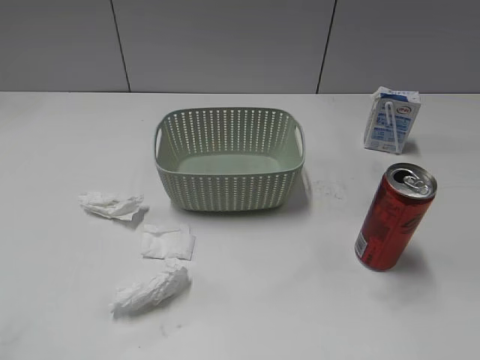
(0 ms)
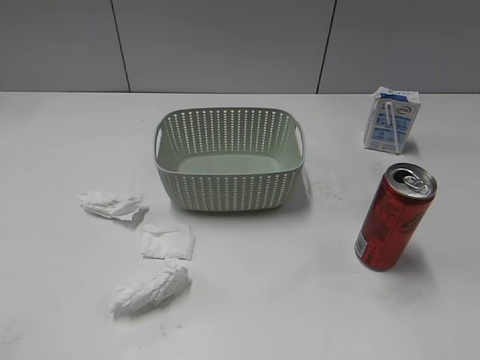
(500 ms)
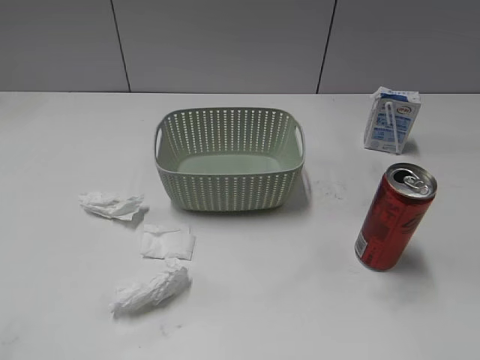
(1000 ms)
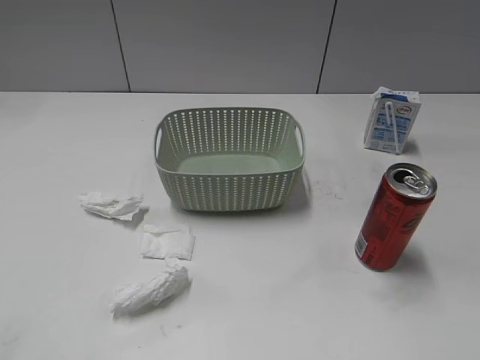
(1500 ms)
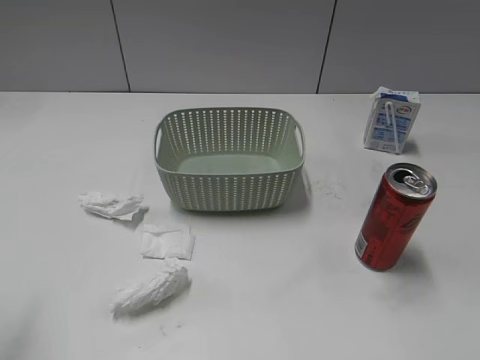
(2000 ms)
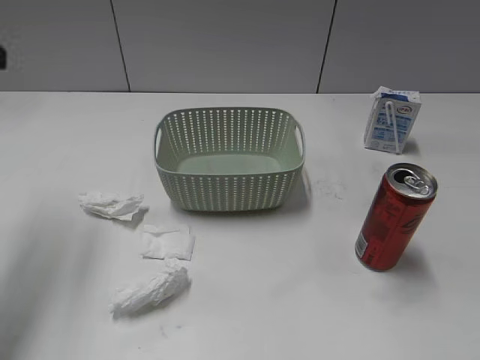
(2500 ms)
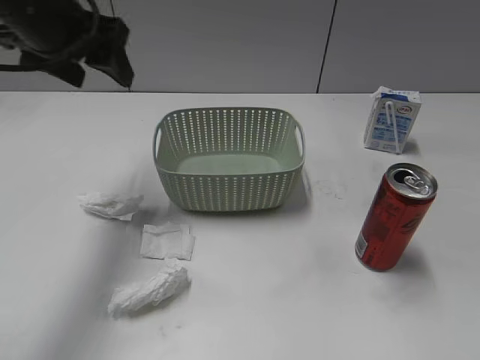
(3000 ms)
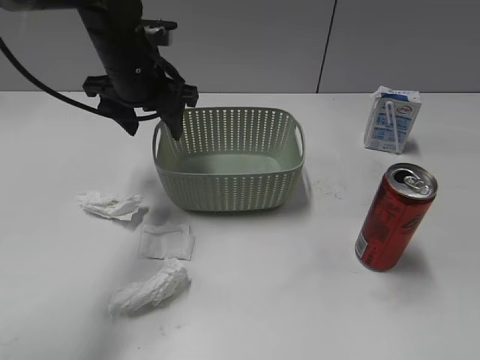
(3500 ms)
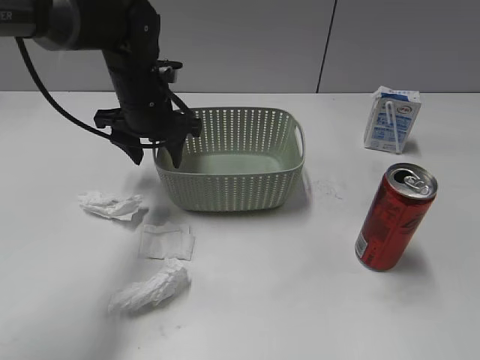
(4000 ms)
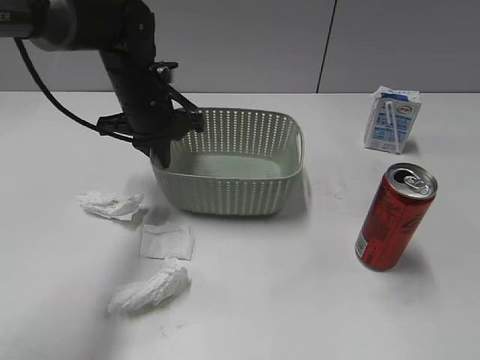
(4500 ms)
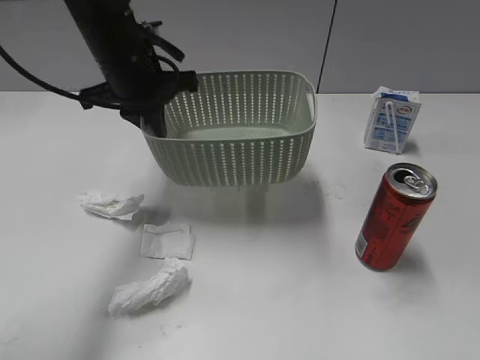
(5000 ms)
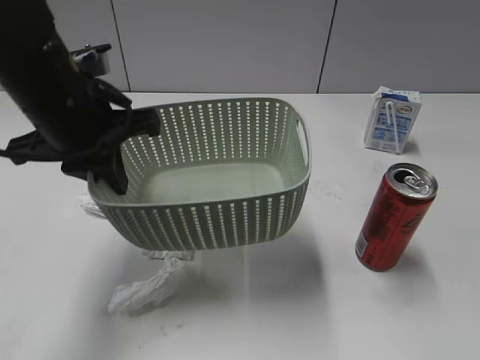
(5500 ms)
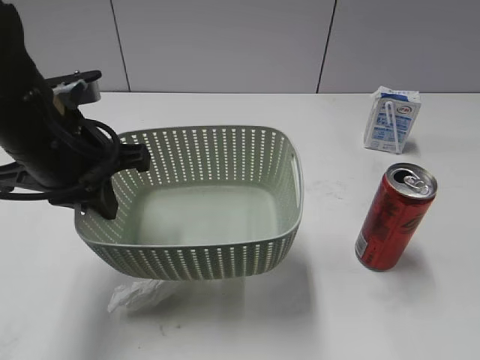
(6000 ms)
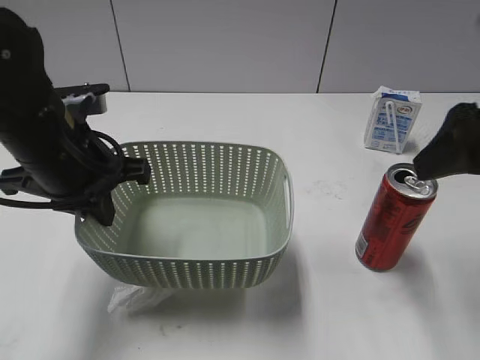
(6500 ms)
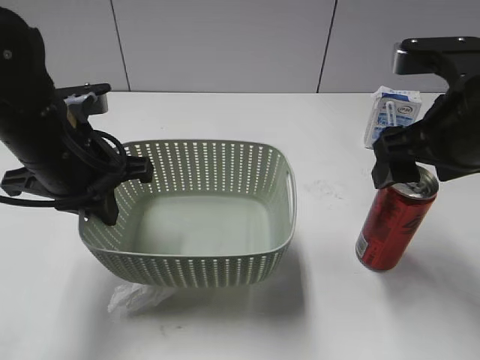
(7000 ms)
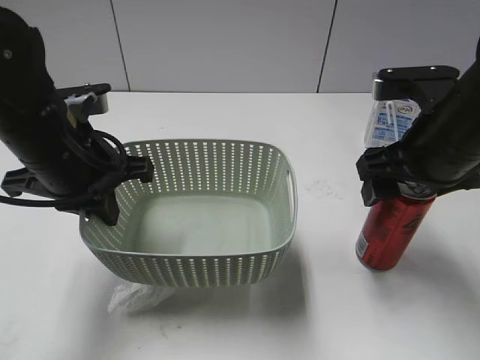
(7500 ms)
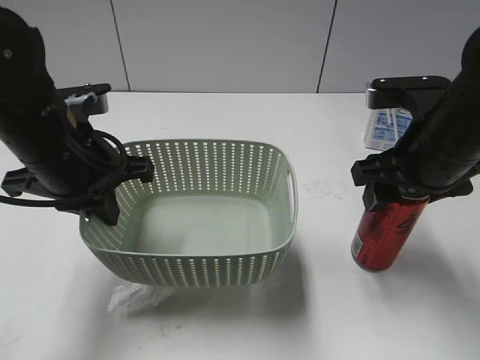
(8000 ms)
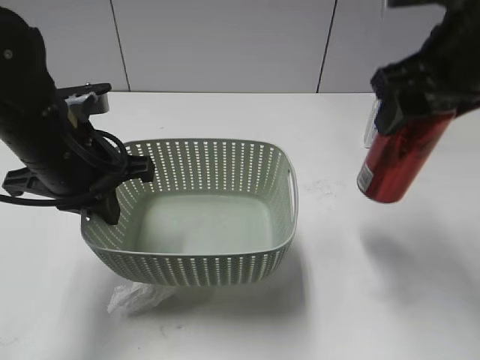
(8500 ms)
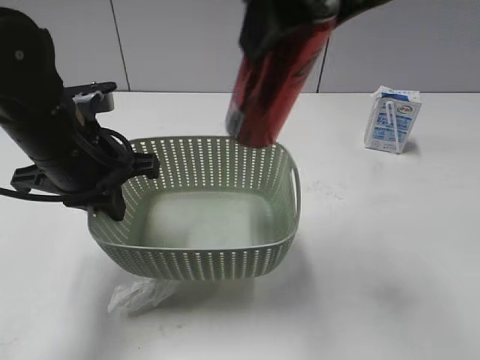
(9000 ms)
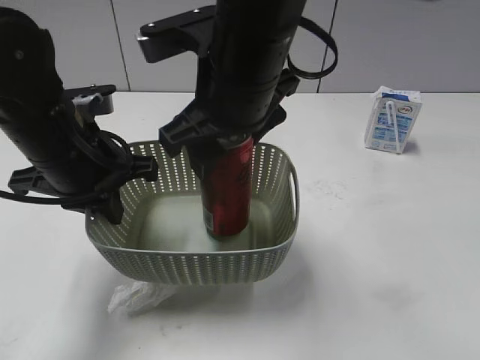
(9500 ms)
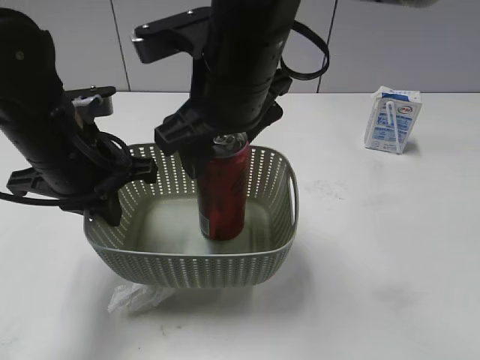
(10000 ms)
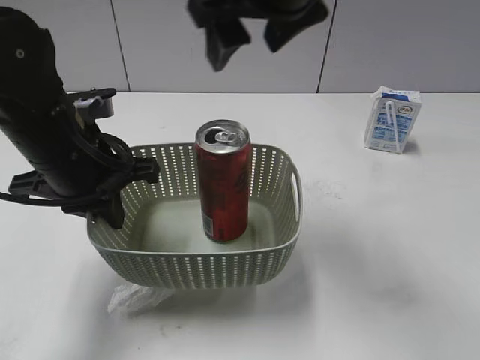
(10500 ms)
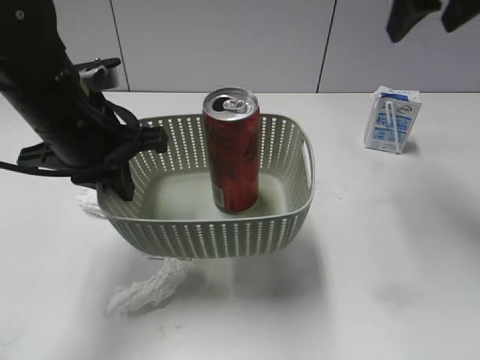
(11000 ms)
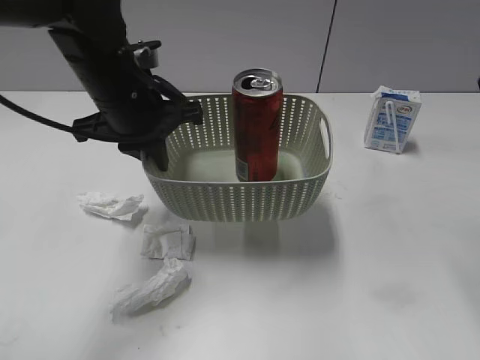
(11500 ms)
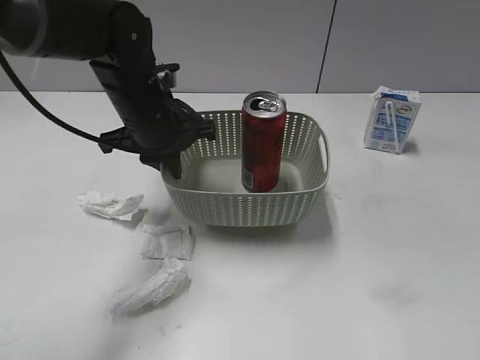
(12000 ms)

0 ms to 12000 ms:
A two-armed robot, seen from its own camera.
Step, 3000 ms to 4000 ms: Grasp the basket with left gripper.
Step, 4500 ms to 6000 ms: Lift the basket with left gripper.
Step, 6500 ms to 7500 ms: Grasp the cola can with right gripper.
Step, 8000 ms to 10000 ms: Place the cola can in the basket with right gripper.
2000 ms to 4000 ms: The left gripper travels forward, to the right and downward by some 35 cm.
4000 ms to 6000 ms: The left gripper heads backward and upward, covering approximately 15 cm, and closes; the right gripper is displaced forward and upward by some 15 cm, and opens its fingers.
6000 ms to 8000 ms: The right gripper moves forward, downward and to the left, approximately 20 cm, and closes its fingers.
8000 ms to 10000 ms: The right gripper moves to the left, some 20 cm, and opens its fingers.
10000 ms to 12000 ms: The left gripper is displaced forward and to the right by roughly 10 cm. The right gripper moves to the right and backward, roughly 35 cm.

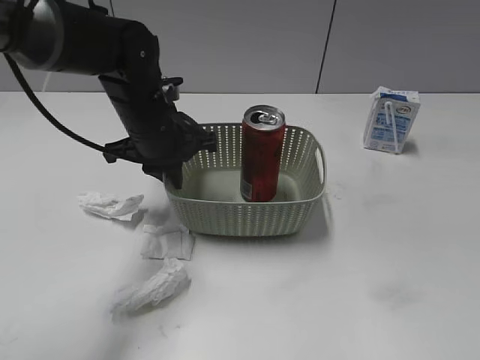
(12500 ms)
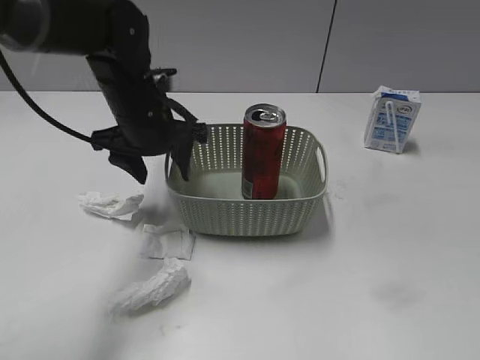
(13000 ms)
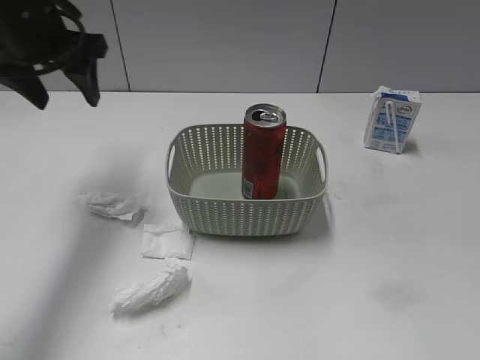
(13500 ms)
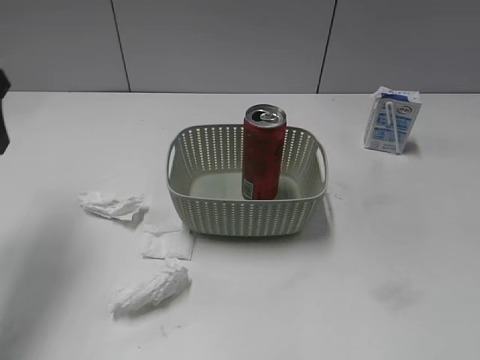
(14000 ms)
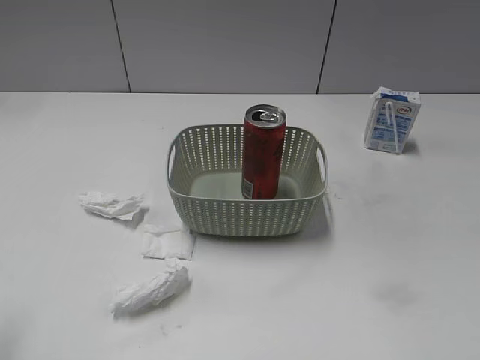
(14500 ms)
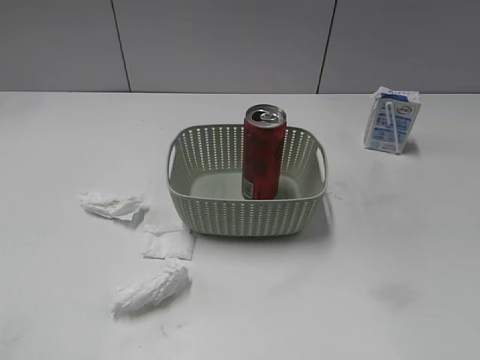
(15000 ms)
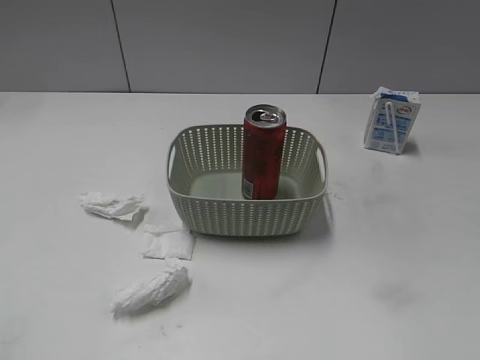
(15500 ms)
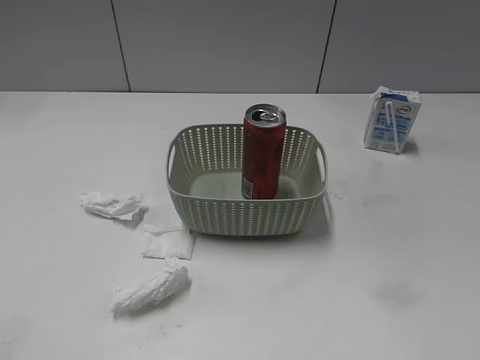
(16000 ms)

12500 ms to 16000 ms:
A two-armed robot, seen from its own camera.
12500 ms to 14500 ms: The left gripper is displaced backward, to the left and upward by some 35 cm, and opens its fingers.

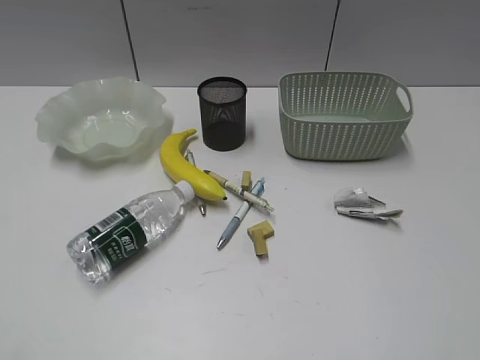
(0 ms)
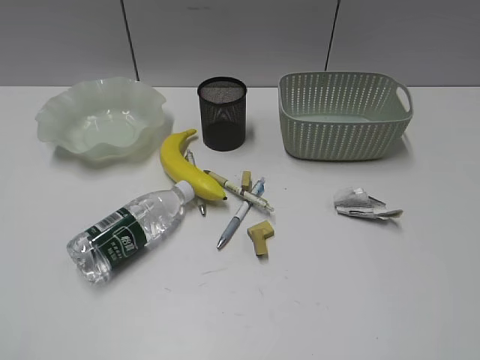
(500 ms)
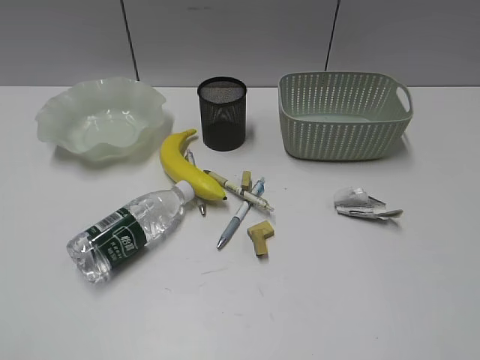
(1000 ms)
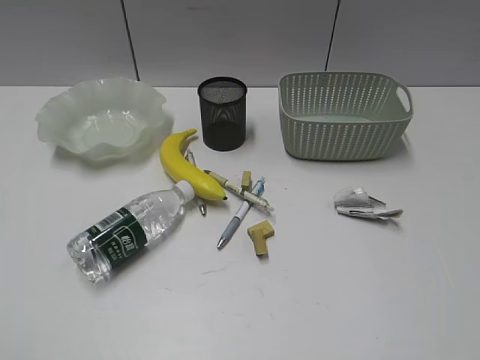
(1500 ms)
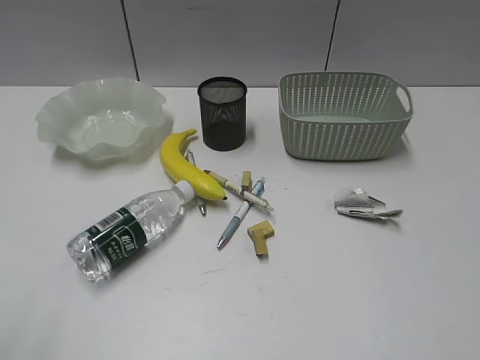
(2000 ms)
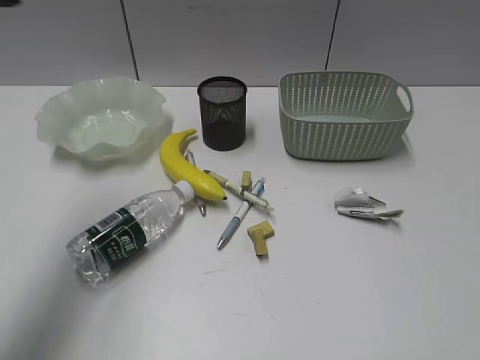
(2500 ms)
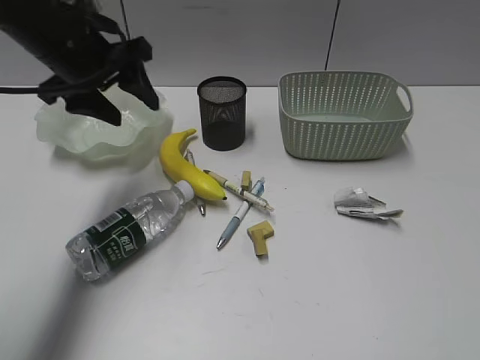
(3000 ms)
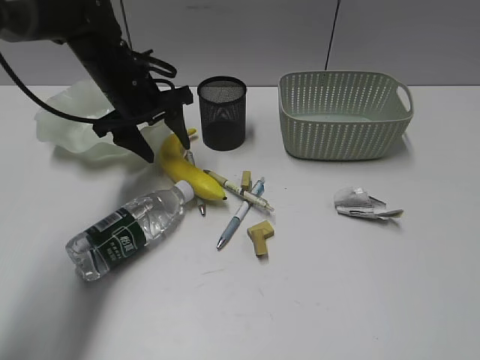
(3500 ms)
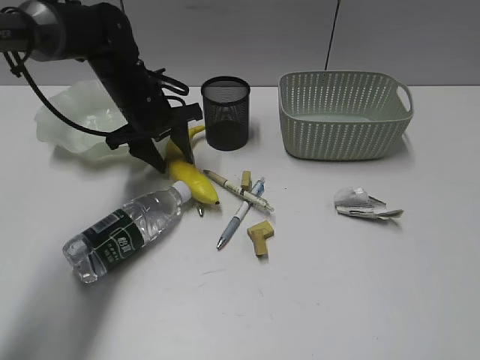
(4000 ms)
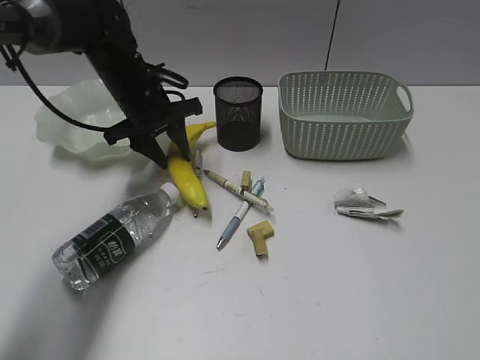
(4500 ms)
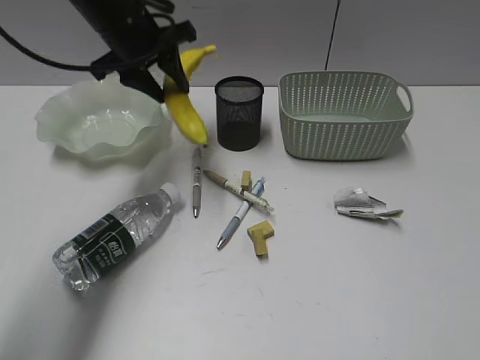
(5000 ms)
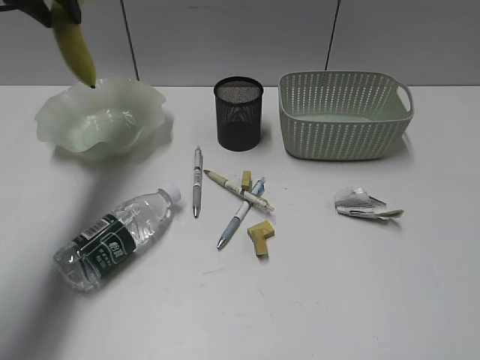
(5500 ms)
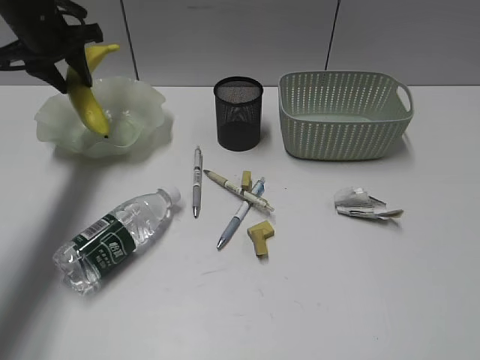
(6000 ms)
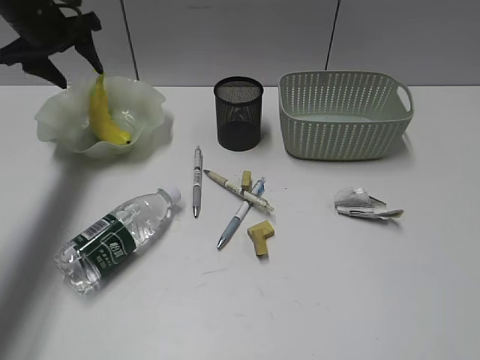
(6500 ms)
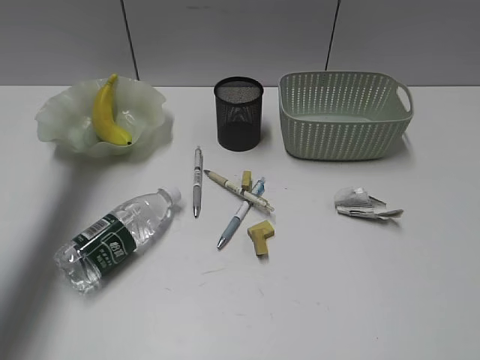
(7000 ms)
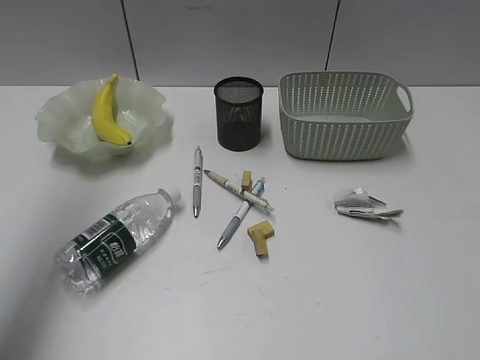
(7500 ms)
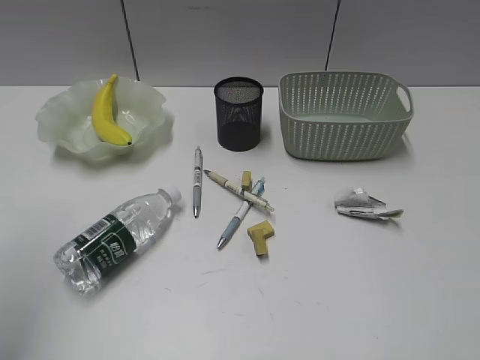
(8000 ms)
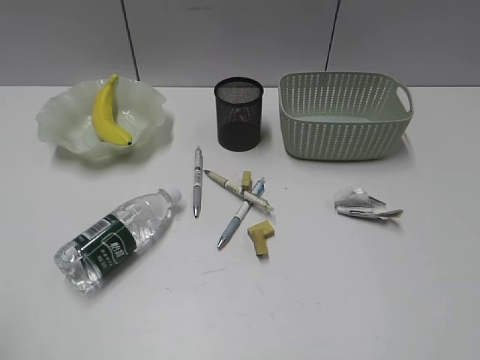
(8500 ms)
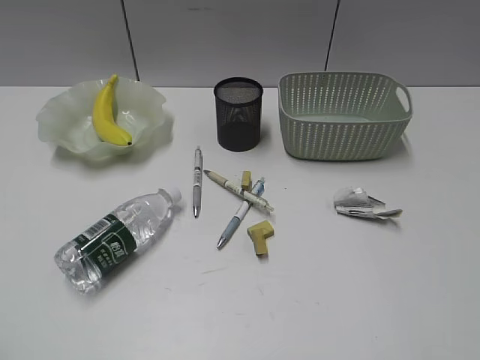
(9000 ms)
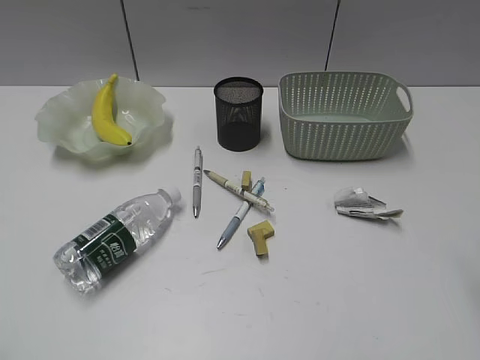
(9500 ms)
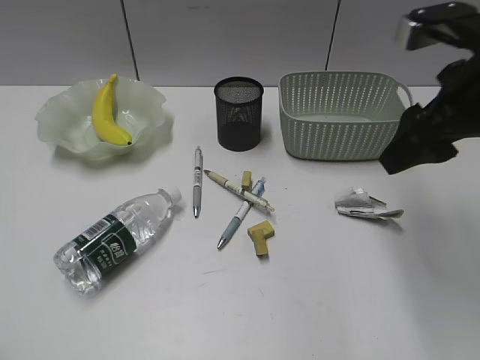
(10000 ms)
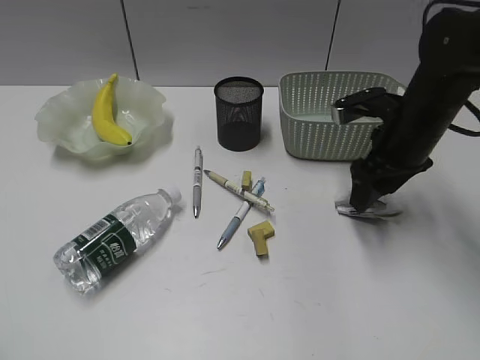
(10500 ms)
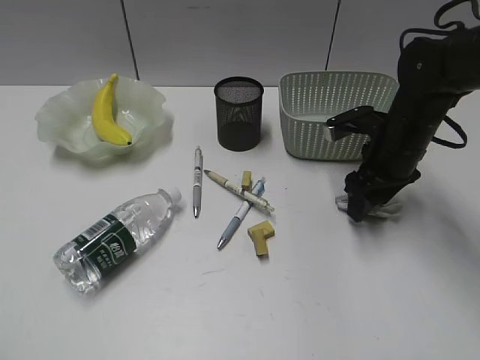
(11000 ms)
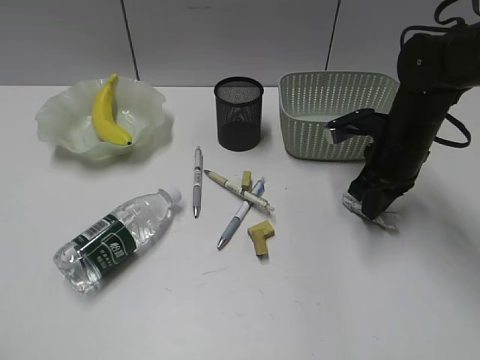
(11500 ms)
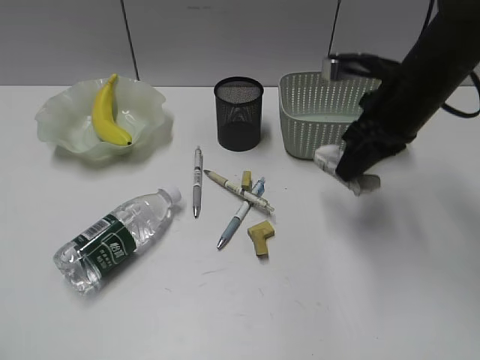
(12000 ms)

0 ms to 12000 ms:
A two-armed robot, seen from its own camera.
Step, 2000 ms to 4000 ms: Grasp the banana with left gripper.
Step, 4500 ms to 6000 ms: Place the banana in the plate with left gripper.
Step, 6500 ms to 11500 ms: Grasp the waste paper with right gripper.
2000 ms to 4000 ms: The left gripper shifts some 50 cm forward, downward and to the right.
4000 ms to 6000 ms: The left gripper goes roughly 15 cm to the left and upward.
6000 ms to 8000 ms: The left gripper shifts some 40 cm backward and upward.
8000 ms to 10000 ms: The right gripper goes approximately 30 cm forward. The left gripper goes about 20 cm backward and downward.
10000 ms to 12000 ms: The right gripper is displaced forward and downward by some 10 cm, and closes up.
